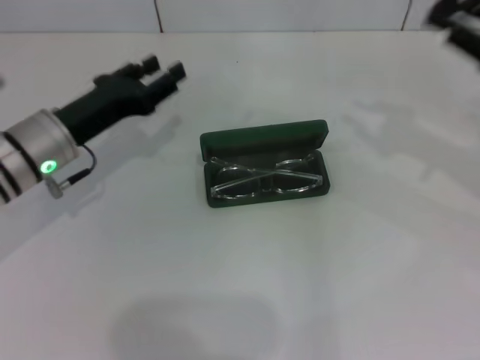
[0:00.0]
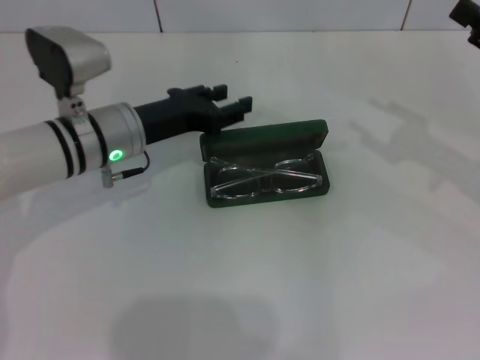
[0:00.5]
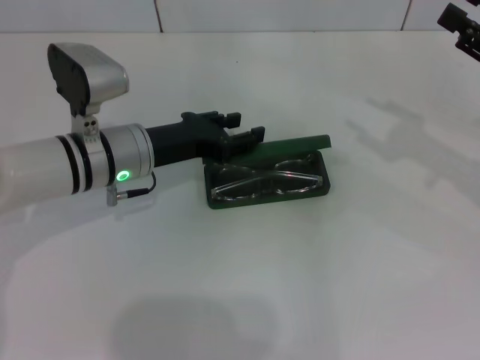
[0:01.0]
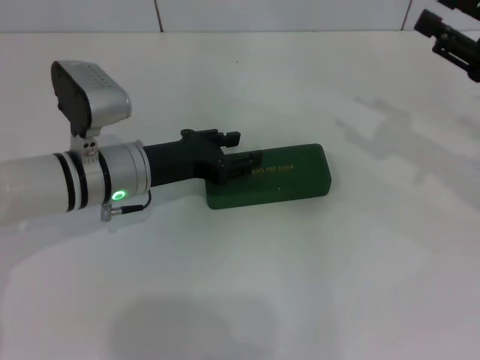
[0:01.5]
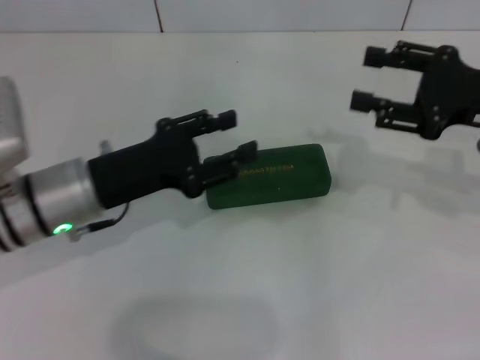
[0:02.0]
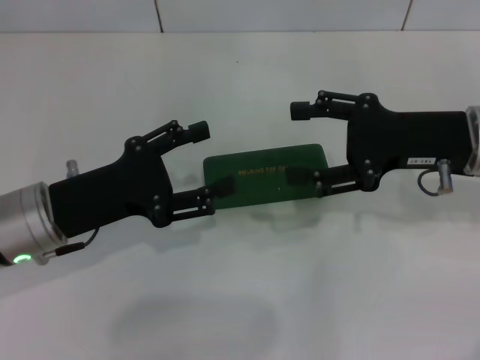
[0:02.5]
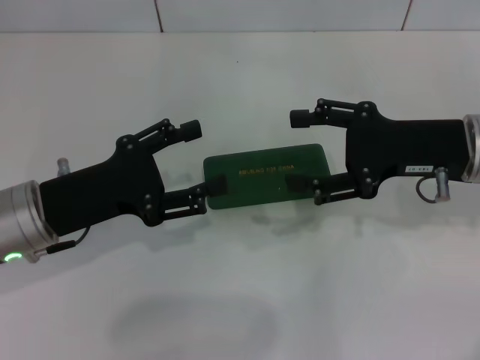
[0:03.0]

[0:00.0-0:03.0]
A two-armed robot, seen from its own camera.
Step, 0:00.0 to 0:01.5: Close the glasses case with your left hand.
0:00.0 to 0:01.5: The left gripper is displaced to the right by about 5 cm.
0:01.5 to 0:03.0: The left gripper goes about 10 cm backward and to the left; the right gripper goes about 10 cm to the left, and opens its fingers.
